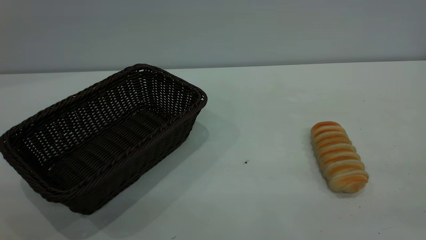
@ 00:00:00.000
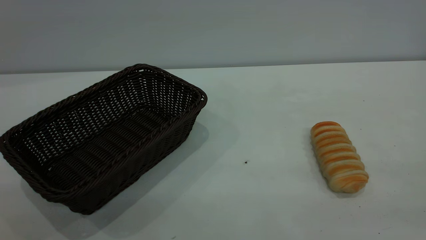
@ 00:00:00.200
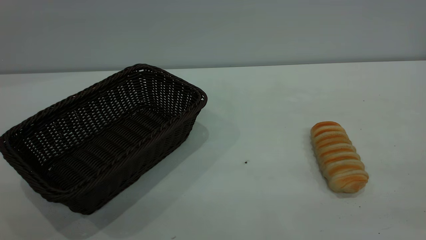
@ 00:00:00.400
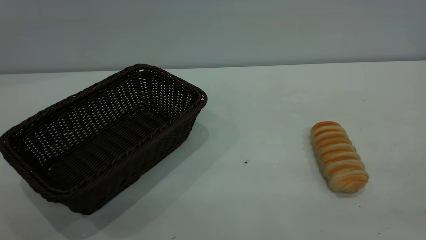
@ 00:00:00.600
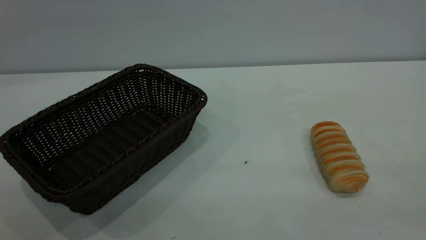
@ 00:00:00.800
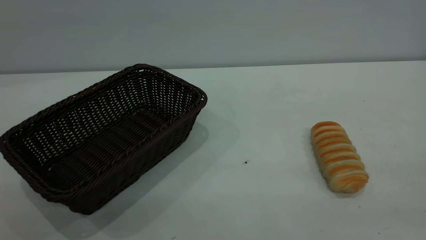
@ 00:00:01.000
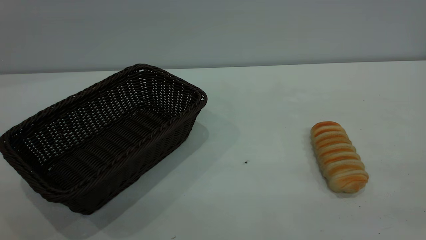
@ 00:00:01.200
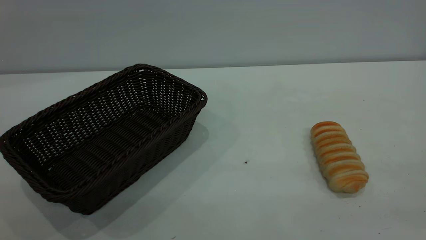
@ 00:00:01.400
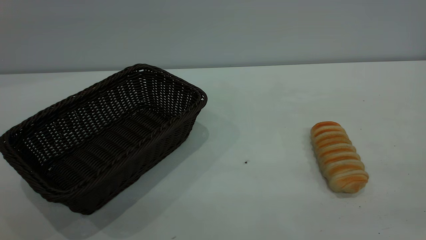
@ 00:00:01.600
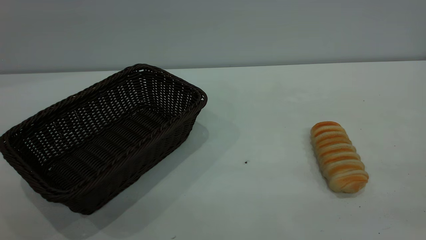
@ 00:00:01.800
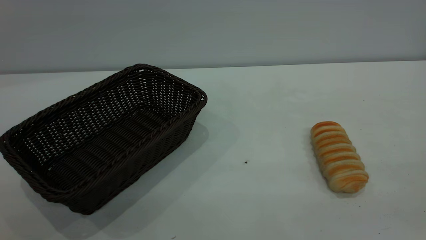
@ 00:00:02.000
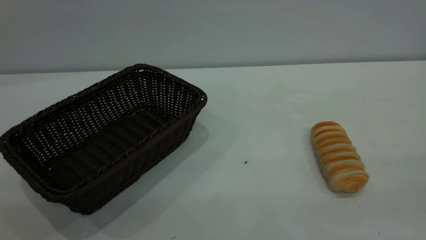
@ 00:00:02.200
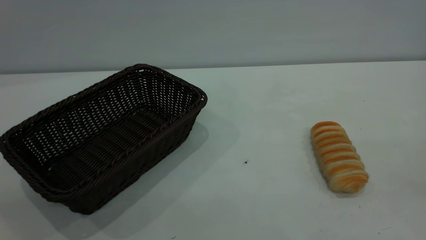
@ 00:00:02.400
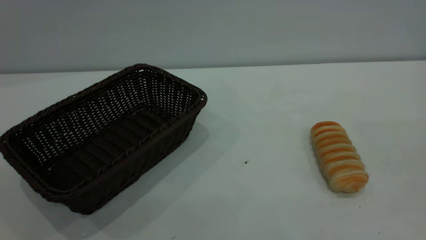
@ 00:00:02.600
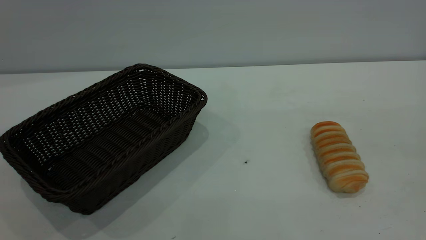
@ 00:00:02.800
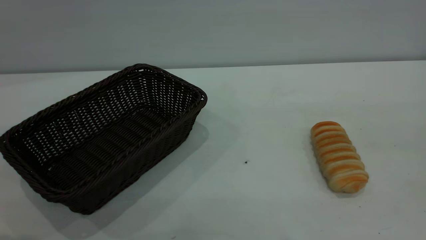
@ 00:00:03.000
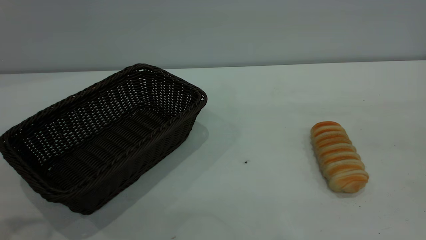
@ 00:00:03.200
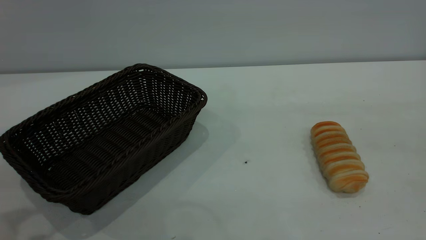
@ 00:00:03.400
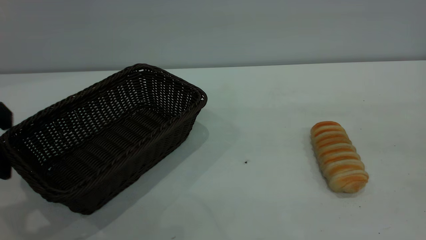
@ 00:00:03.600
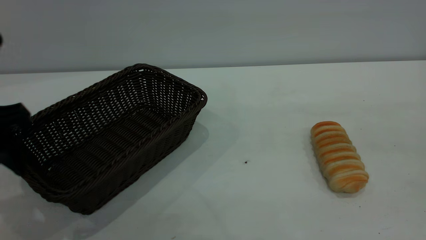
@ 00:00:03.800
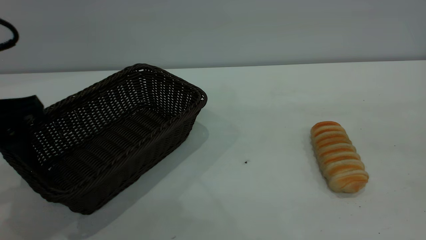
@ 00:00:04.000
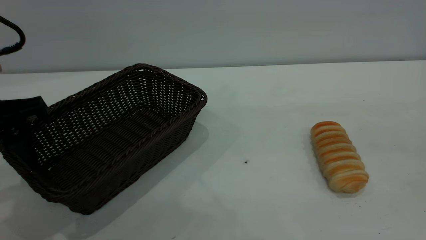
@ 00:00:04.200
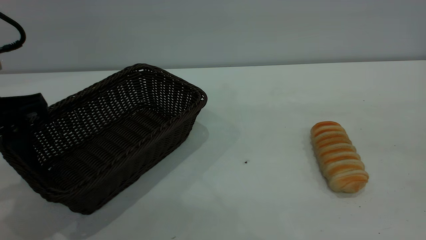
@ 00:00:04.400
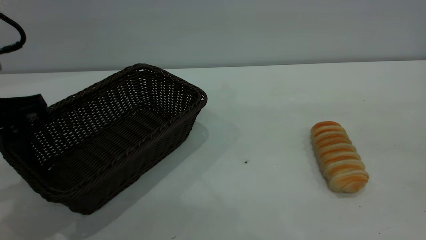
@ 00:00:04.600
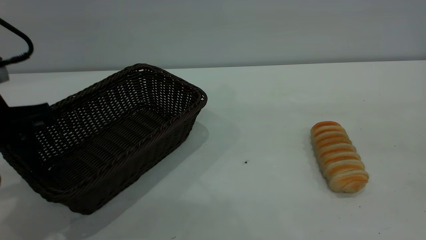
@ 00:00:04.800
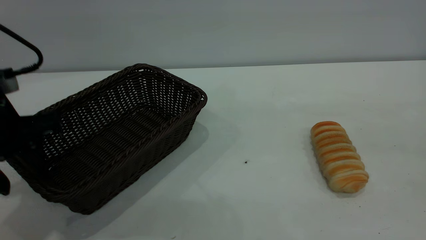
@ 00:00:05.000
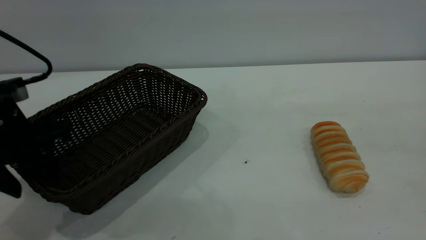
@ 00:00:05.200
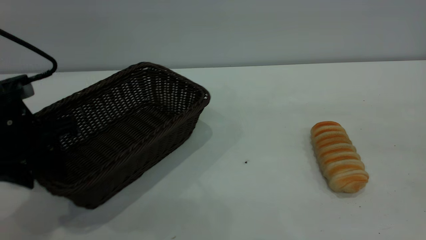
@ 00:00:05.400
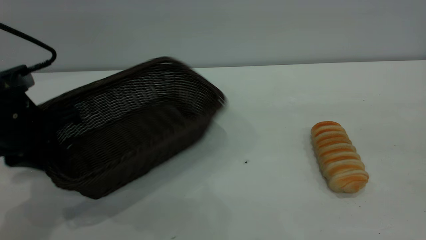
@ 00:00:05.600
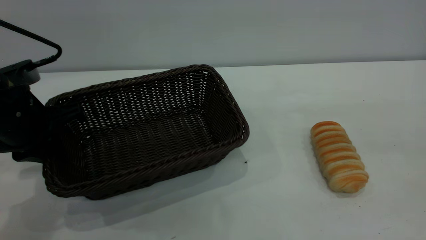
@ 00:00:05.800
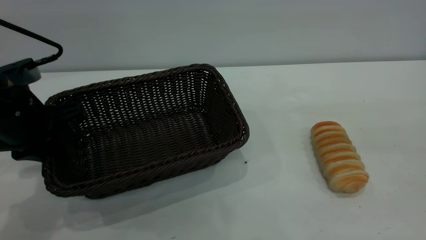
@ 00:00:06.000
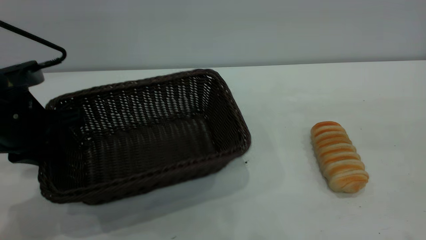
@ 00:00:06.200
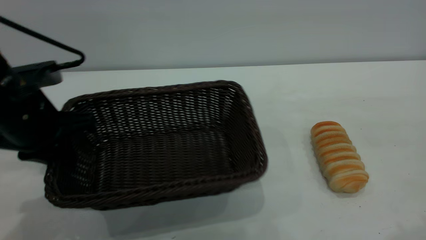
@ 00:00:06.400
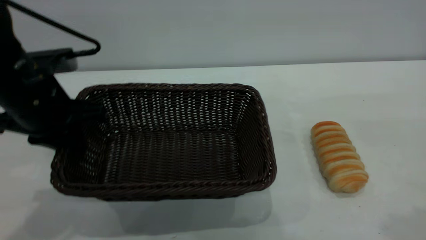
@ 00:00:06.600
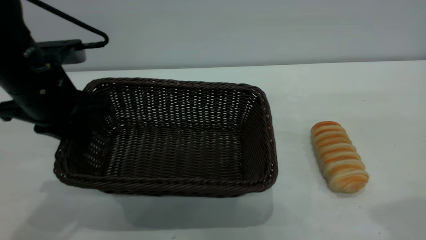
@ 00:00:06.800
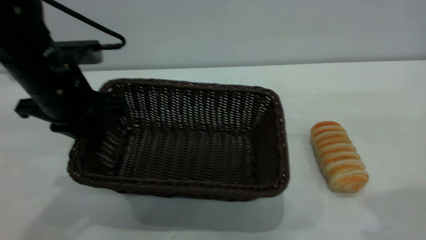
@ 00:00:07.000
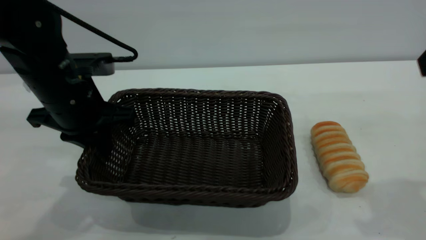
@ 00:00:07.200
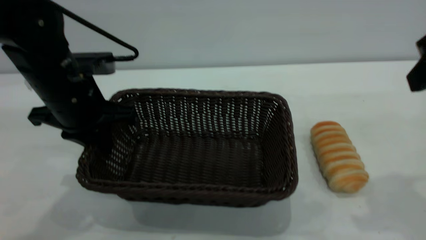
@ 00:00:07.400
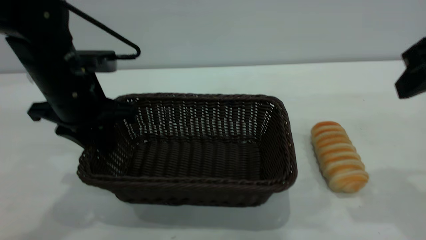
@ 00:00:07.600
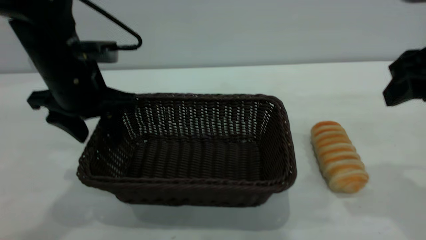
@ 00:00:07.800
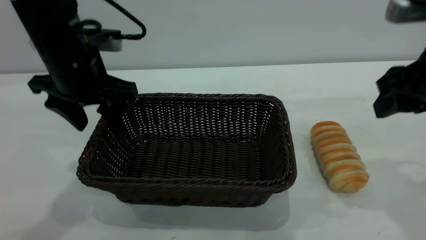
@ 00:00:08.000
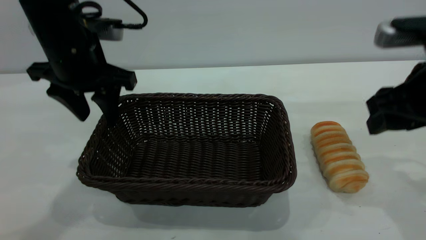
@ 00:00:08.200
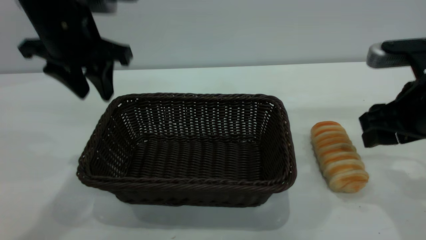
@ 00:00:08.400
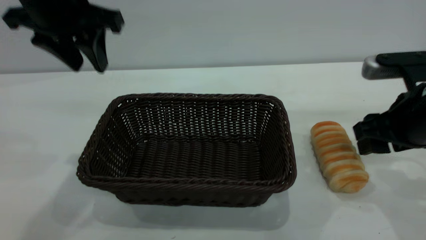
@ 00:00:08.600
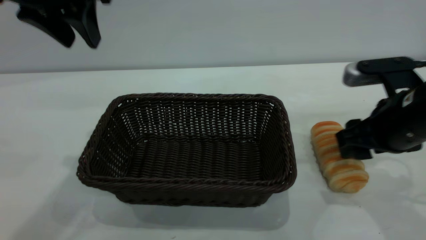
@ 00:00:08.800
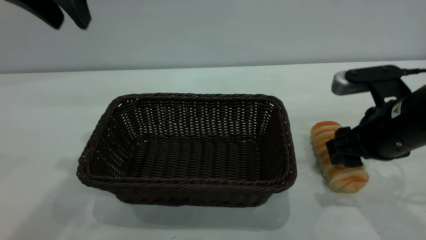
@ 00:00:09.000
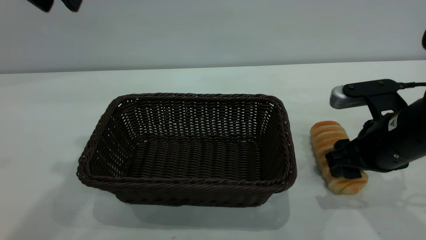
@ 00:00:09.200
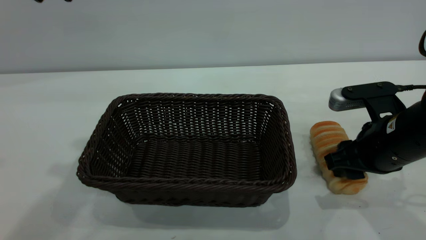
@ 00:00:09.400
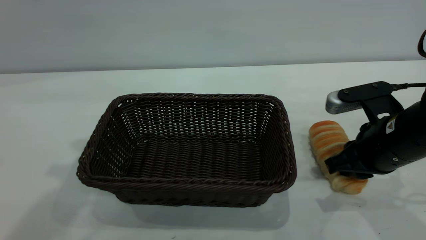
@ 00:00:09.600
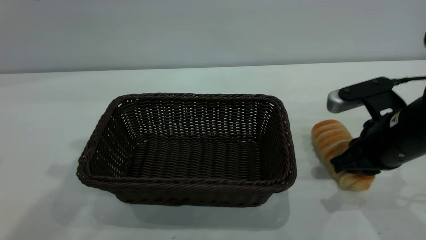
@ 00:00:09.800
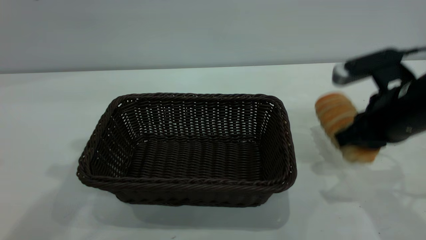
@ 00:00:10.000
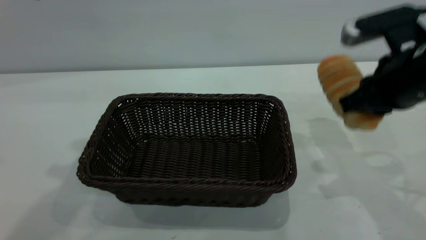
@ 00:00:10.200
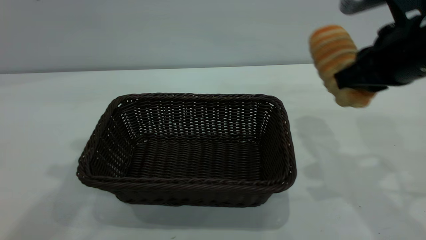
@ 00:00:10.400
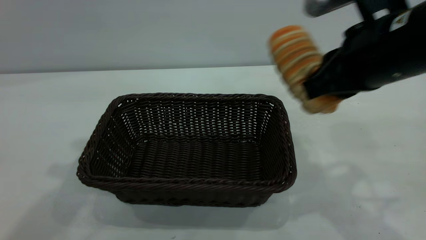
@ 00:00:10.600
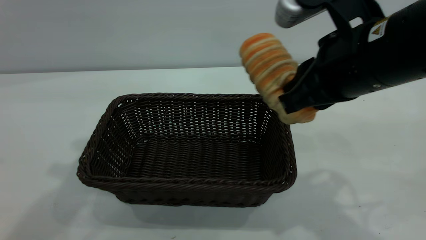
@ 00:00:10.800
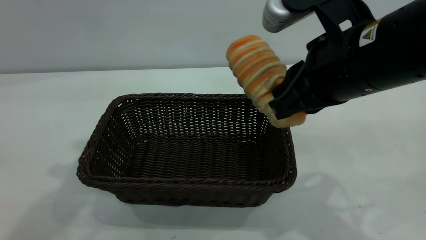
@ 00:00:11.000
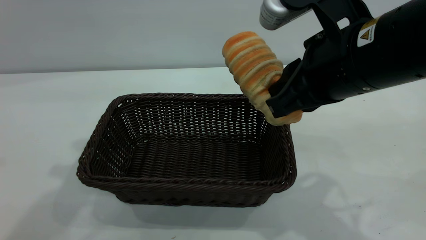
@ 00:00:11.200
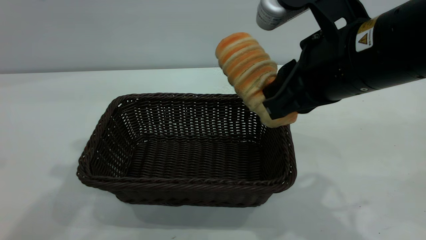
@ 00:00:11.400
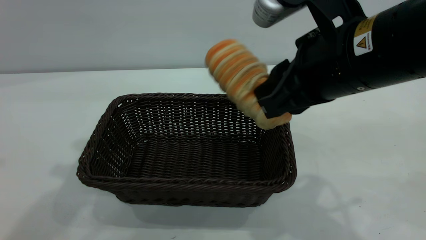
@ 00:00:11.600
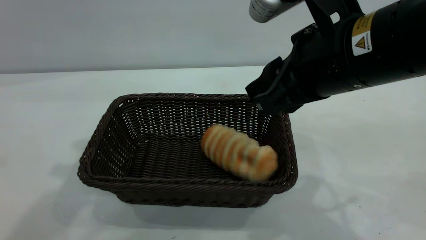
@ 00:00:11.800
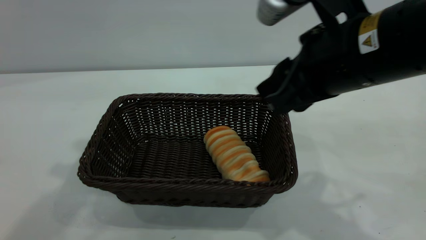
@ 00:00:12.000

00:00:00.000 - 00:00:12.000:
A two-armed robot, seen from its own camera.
Task of the whole recording: One hand grasps the black basket and places it in the middle of the table, while the other hand picks up the long bread and puts it into the black basket.
Step, 00:00:00.000 - 00:00:08.200: Move the basket to the center of view.
00:00:03.000 - 00:00:04.400: The left gripper heads forward and downward, covering roughly 15 cm.
00:00:04.400 - 00:00:06.000: The left gripper travels downward by about 5 cm, and closes its fingers.
00:00:06.000 - 00:00:07.600: The left gripper moves to the right, some 5 cm, and opens up; the right gripper travels forward and downward by approximately 20 cm.
00:00:07.600 - 00:00:09.000: The right gripper moves downward, approximately 15 cm, while the left gripper is displaced upward by some 20 cm.
00:00:09.000 - 00:00:10.400: The right gripper travels upward by some 10 cm, and closes.
00:00:10.400 - 00:00:12.000: The right gripper heads to the left, covering roughly 5 cm, and opens its fingers.

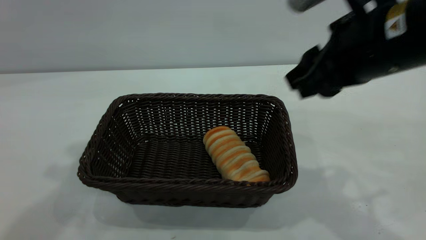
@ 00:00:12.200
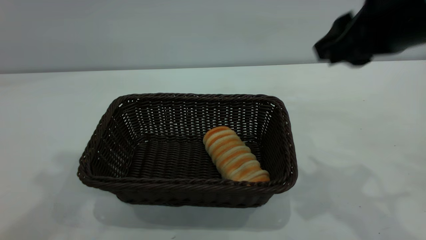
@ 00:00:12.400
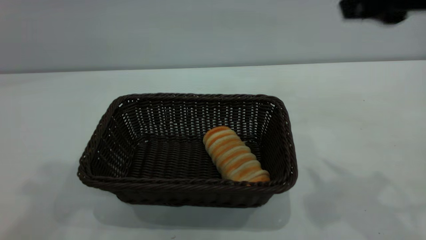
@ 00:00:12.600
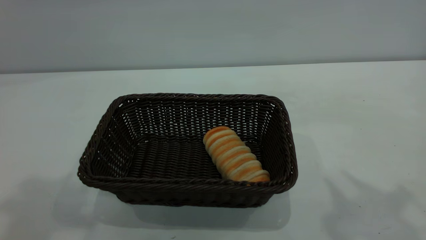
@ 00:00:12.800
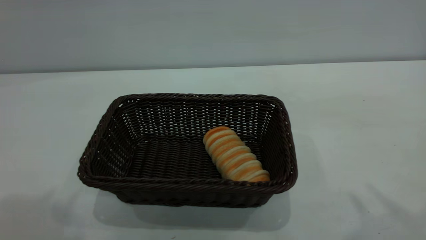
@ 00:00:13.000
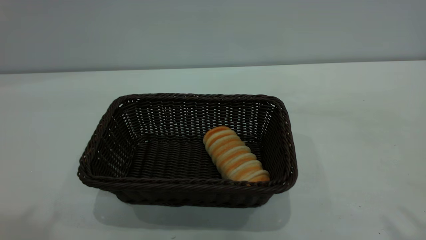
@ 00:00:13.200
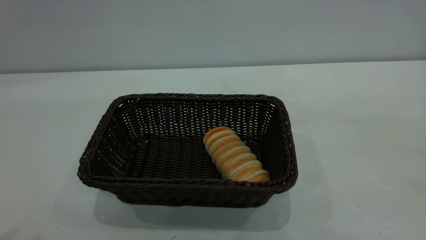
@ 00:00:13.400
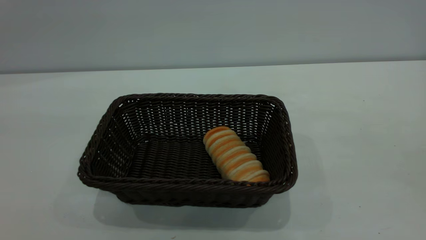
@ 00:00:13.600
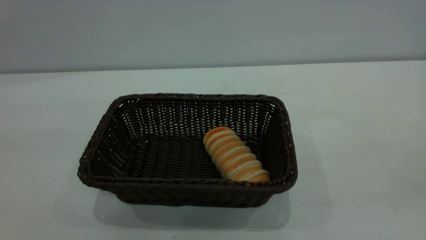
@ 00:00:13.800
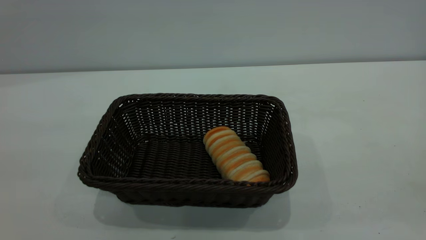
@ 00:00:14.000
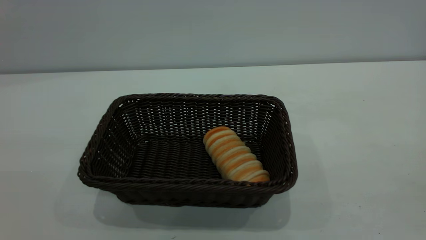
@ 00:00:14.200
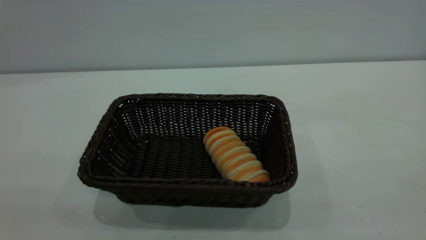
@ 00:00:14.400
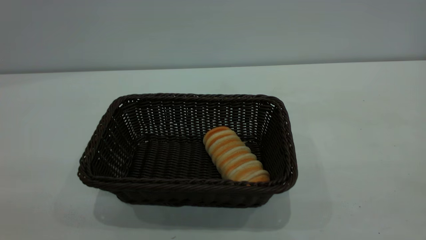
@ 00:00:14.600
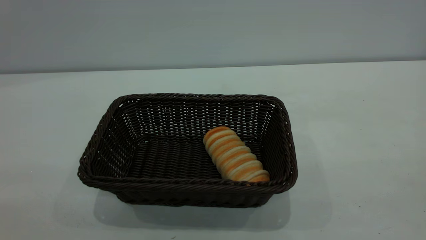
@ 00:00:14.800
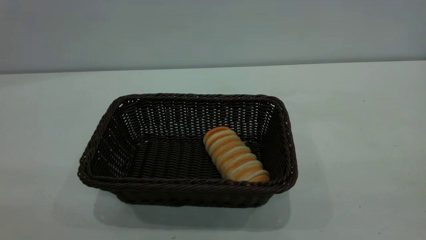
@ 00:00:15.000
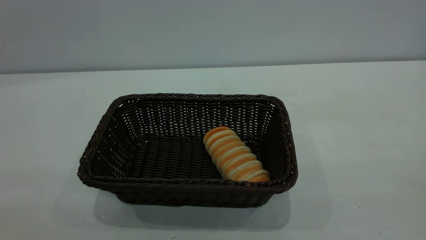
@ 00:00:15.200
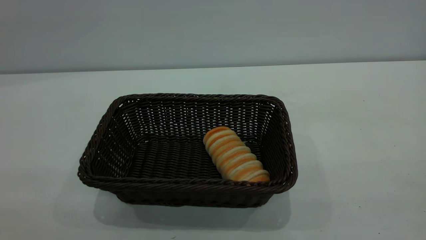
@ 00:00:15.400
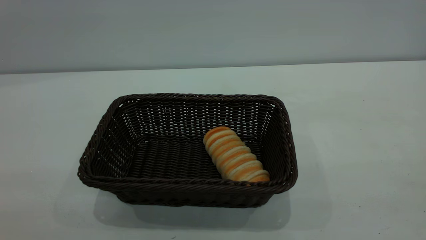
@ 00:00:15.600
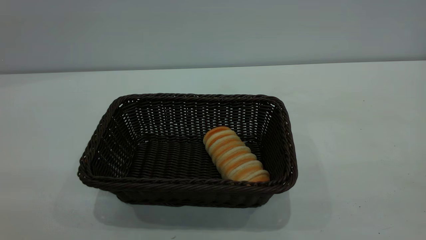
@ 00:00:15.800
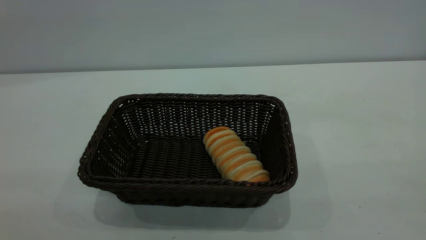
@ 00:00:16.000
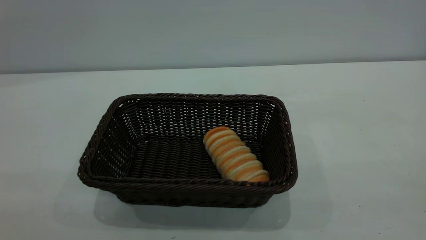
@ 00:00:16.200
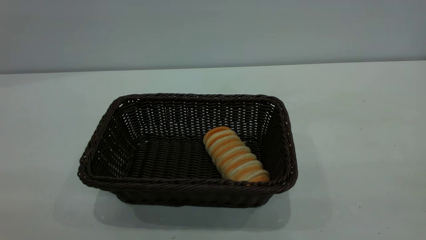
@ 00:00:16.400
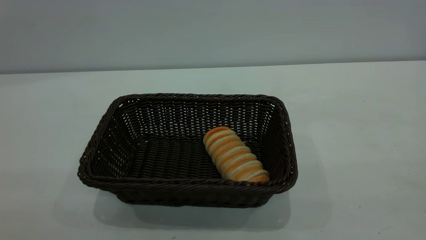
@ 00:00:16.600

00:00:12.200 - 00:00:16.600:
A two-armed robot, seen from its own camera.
Task of the whole recording: One hand grasps the black basket and places it in the middle of the table, while the other hand picks up the long bread and puts it into the black basket.
00:00:12.200 - 00:00:13.600: The right gripper goes about 25 cm backward, upward and to the right. Meanwhile the left gripper heads backward, covering roughly 20 cm.
00:00:15.200 - 00:00:16.600: Neither gripper changes place.
